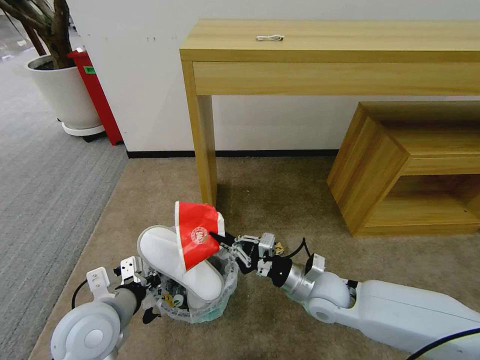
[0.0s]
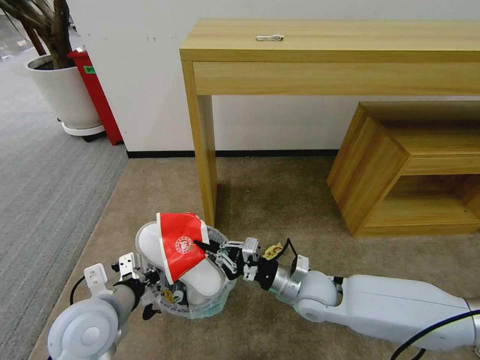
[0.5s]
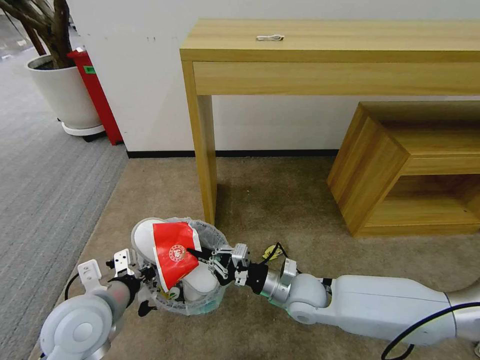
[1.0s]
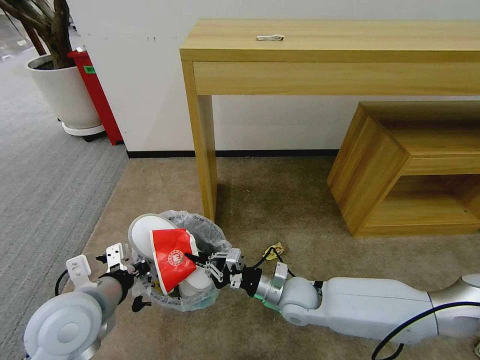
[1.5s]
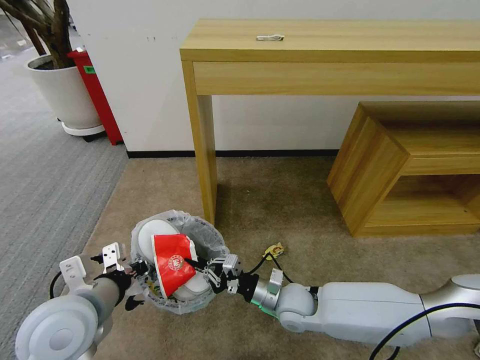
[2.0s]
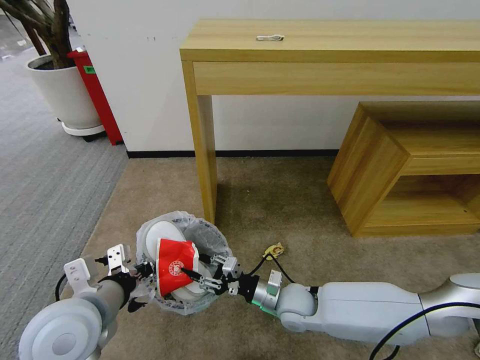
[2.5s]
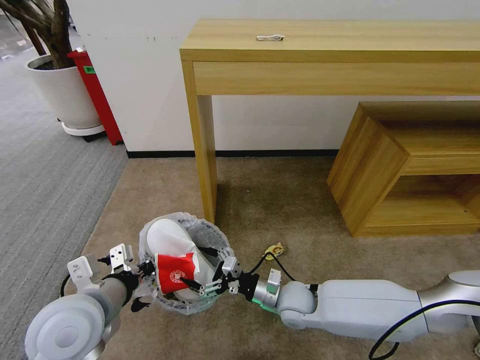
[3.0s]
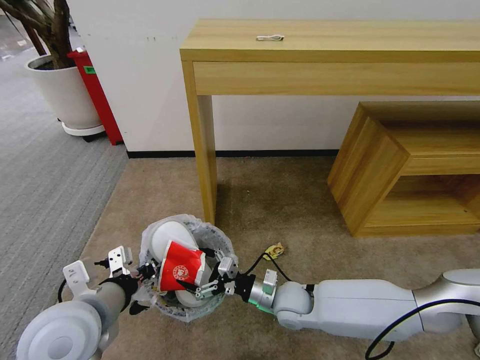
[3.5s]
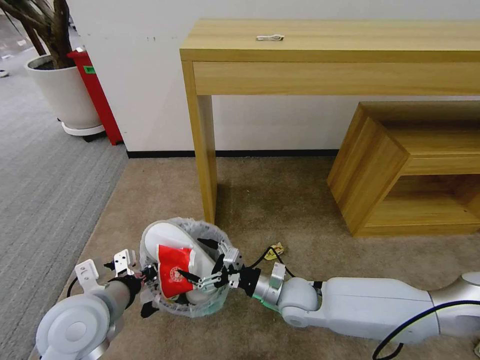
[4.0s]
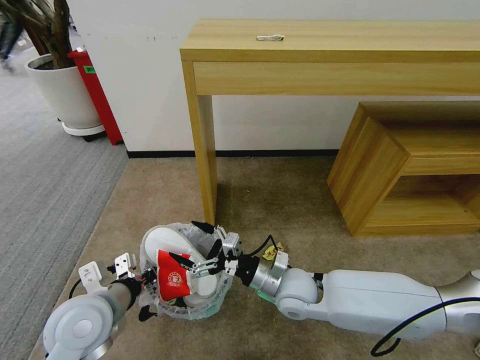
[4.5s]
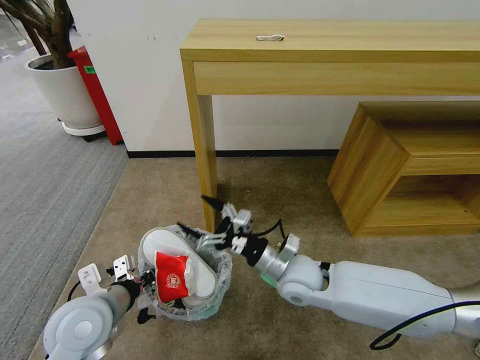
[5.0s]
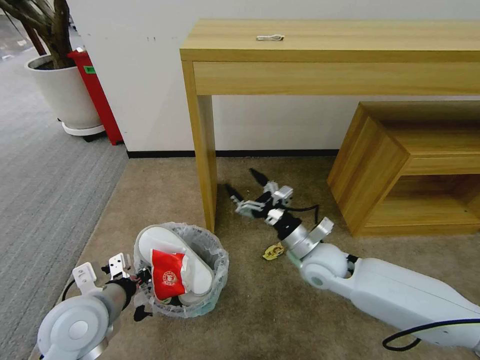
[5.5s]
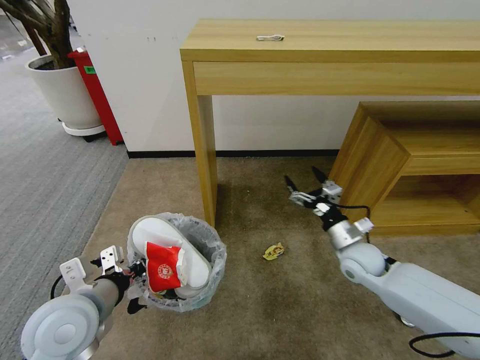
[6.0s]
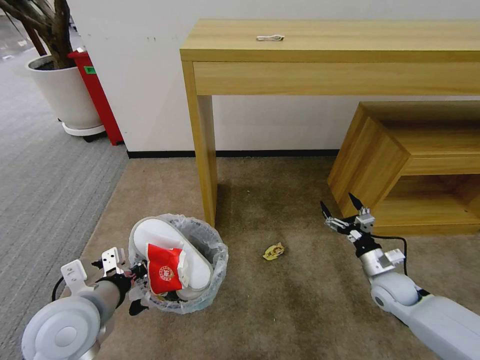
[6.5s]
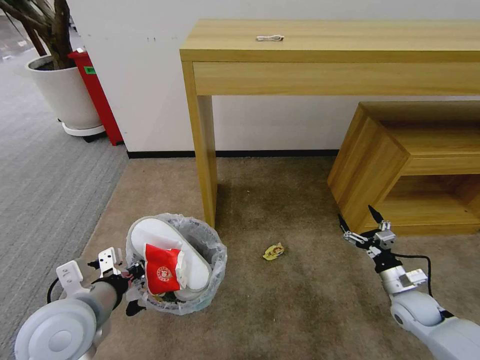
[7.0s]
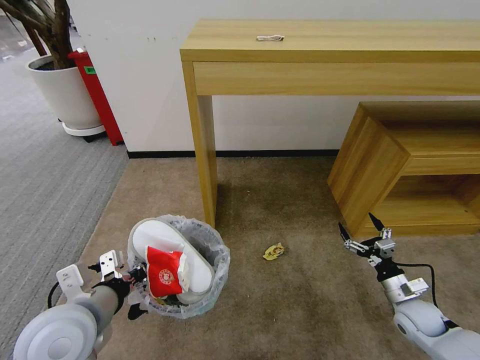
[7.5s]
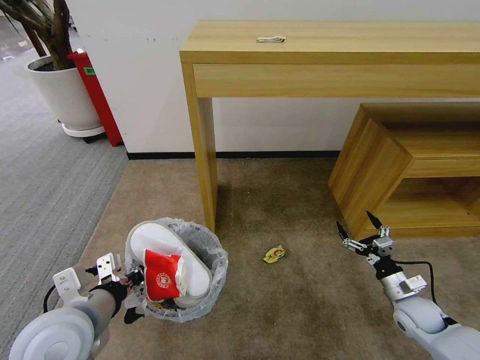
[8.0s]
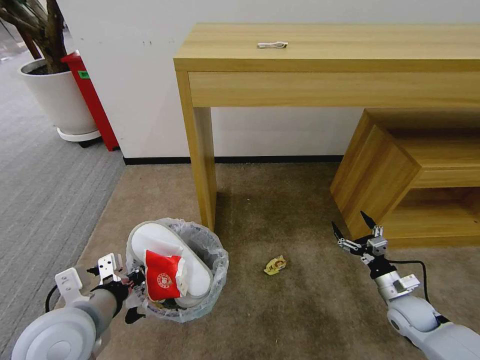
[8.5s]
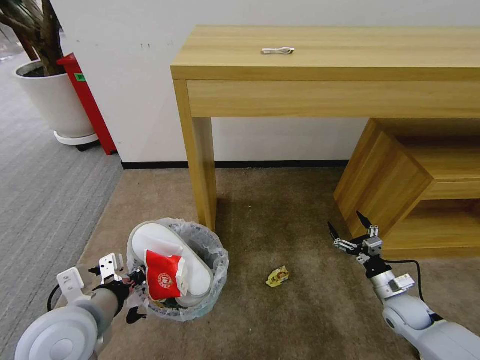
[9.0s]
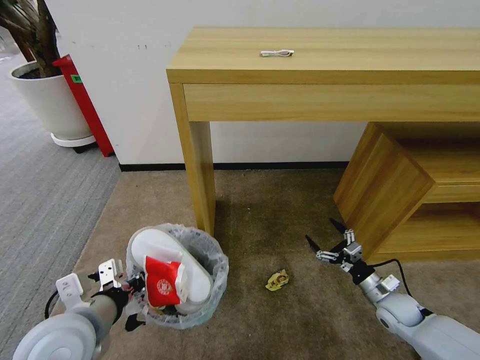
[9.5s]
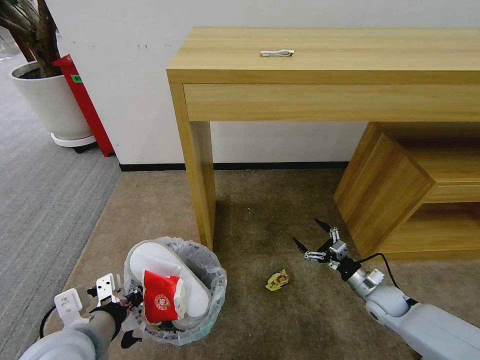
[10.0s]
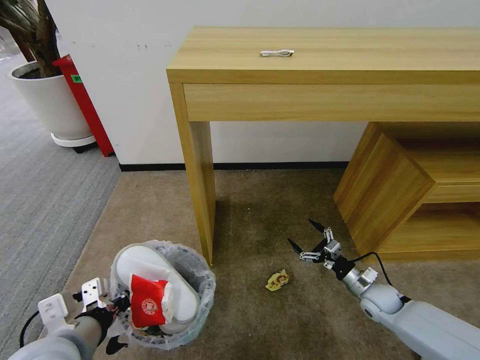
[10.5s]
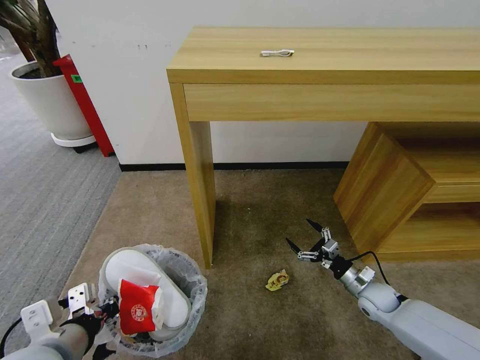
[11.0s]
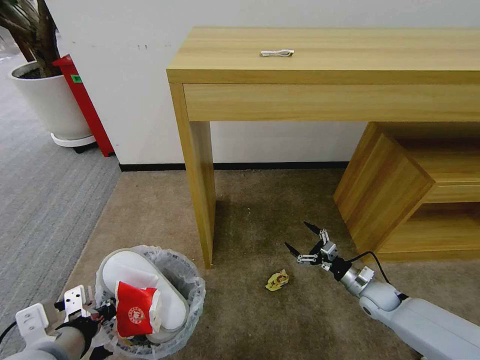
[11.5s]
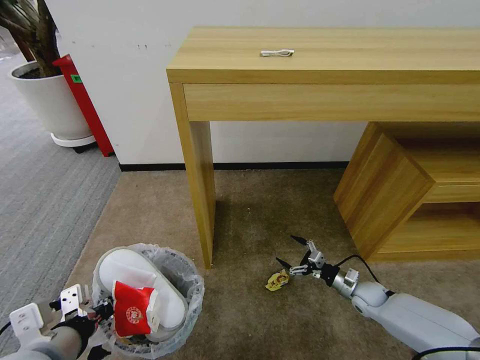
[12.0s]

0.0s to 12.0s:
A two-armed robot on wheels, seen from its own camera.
Task of the whole recording: Pick up the trash bin and place the garbage on the floor into it.
0.0s to 2.0s: The right gripper goes roughly 10 cm to the left and downward, while the left gripper heads upward, covering some 5 cm.
2.0s to 4.0s: The right gripper opens its fingers.
4.0s to 6.0s: The right gripper moves to the right and forward, about 20 cm.
6.0s to 8.0s: The right gripper heads to the right, backward and downward, covering approximately 20 cm.
8.0s to 10.0s: The right gripper moves about 5 cm.
10.0s to 12.0s: The right gripper shifts some 5 cm downward.

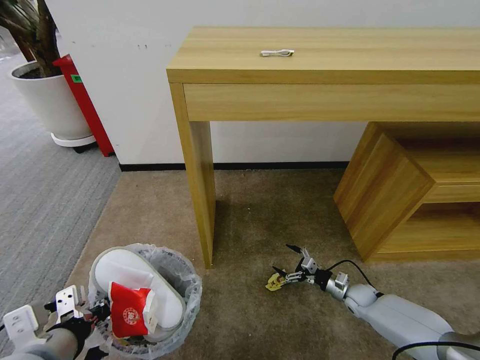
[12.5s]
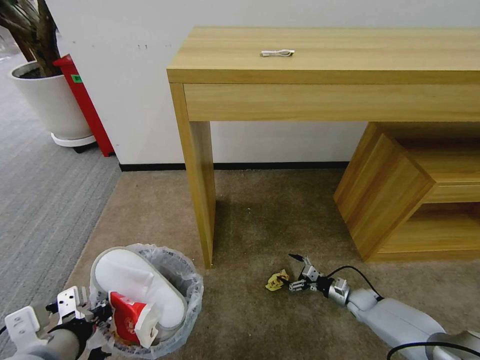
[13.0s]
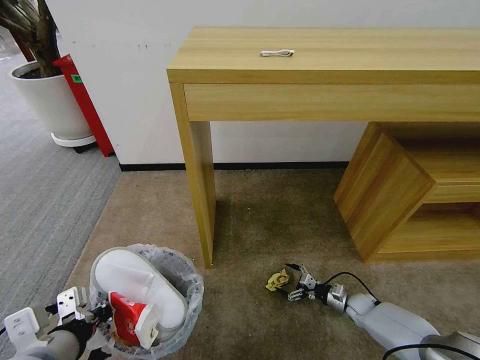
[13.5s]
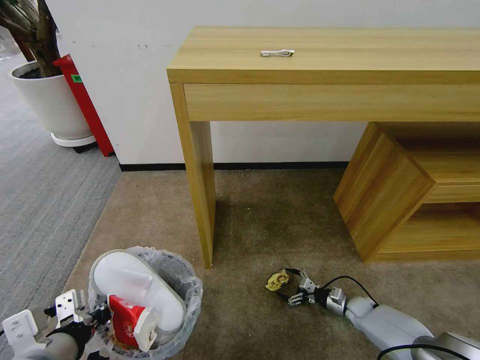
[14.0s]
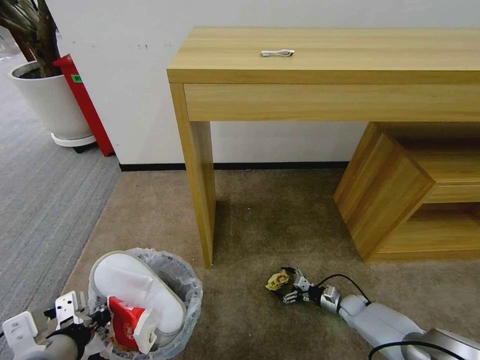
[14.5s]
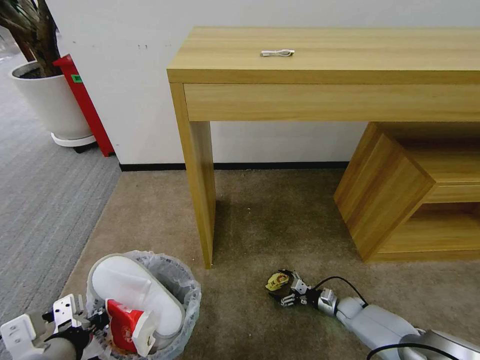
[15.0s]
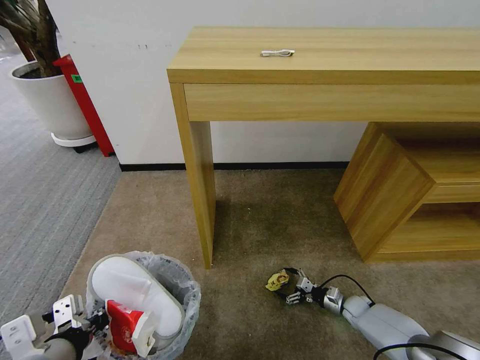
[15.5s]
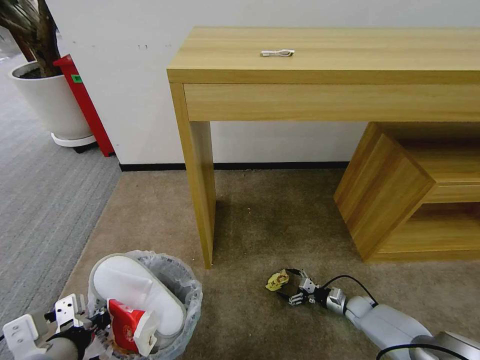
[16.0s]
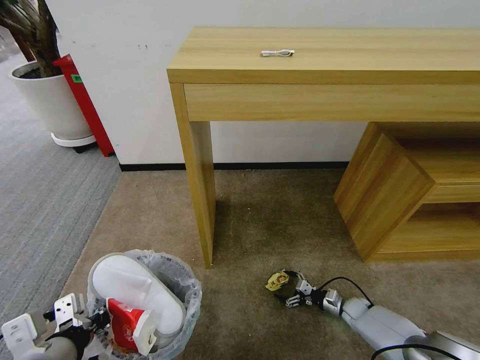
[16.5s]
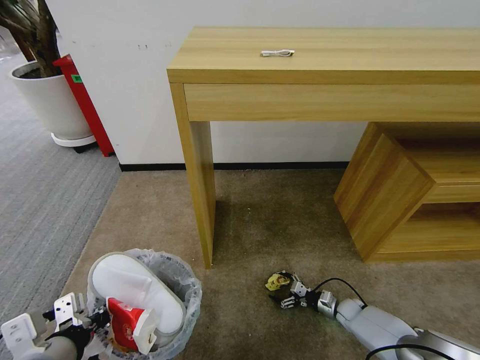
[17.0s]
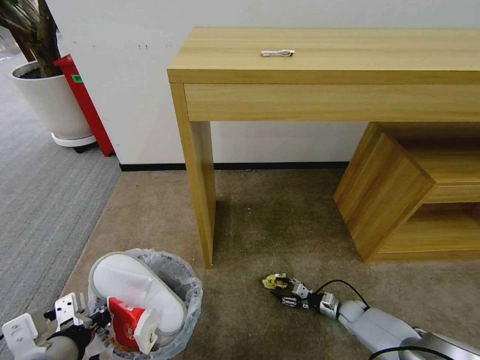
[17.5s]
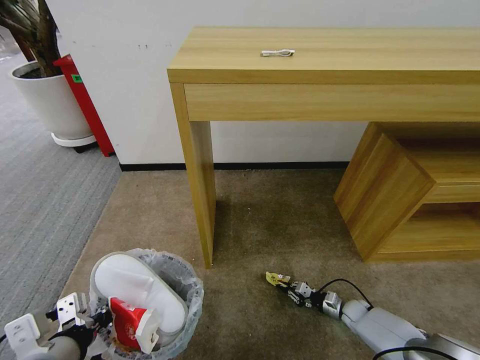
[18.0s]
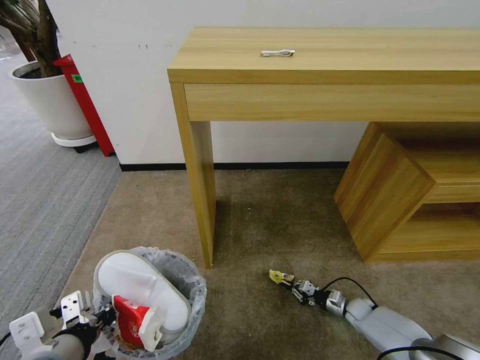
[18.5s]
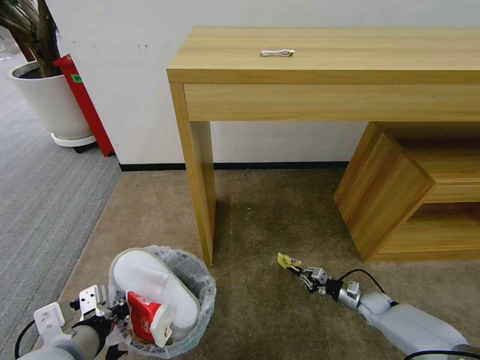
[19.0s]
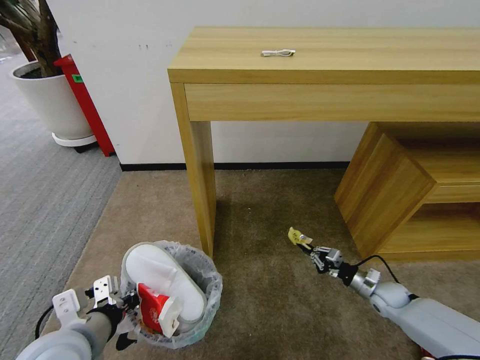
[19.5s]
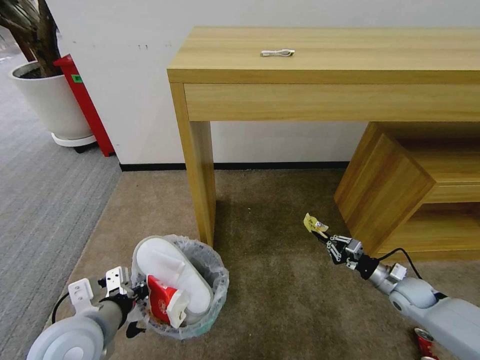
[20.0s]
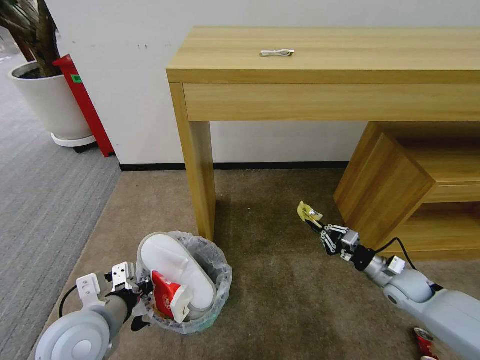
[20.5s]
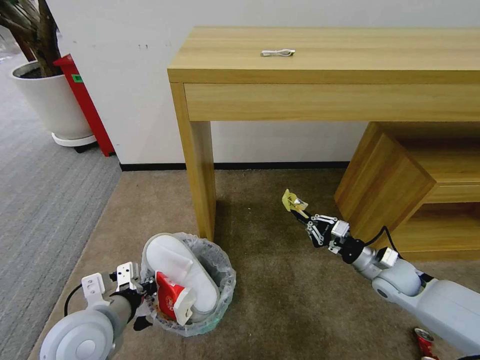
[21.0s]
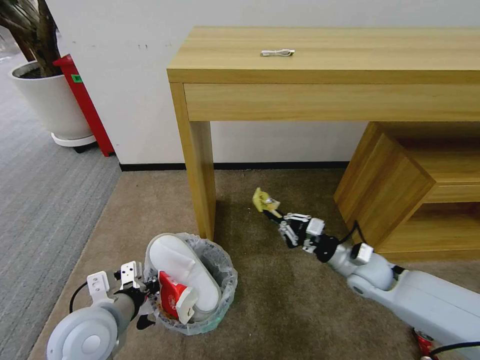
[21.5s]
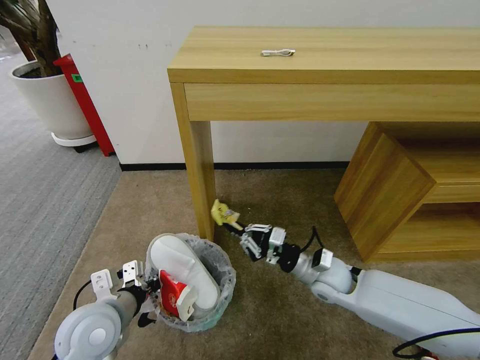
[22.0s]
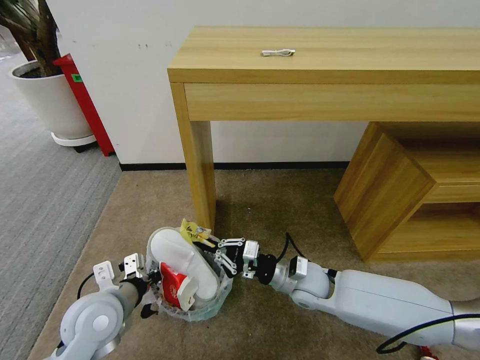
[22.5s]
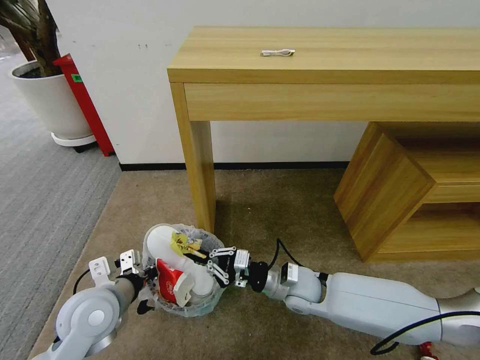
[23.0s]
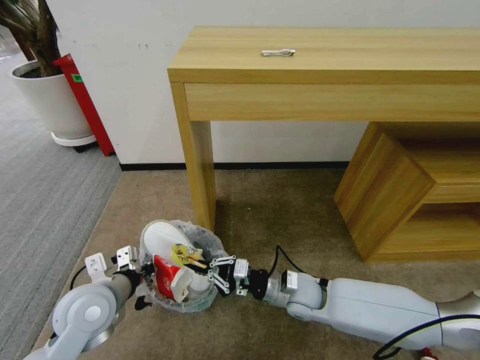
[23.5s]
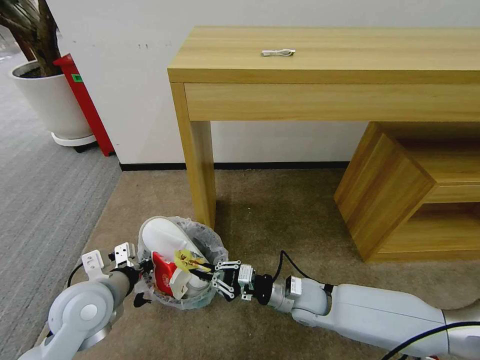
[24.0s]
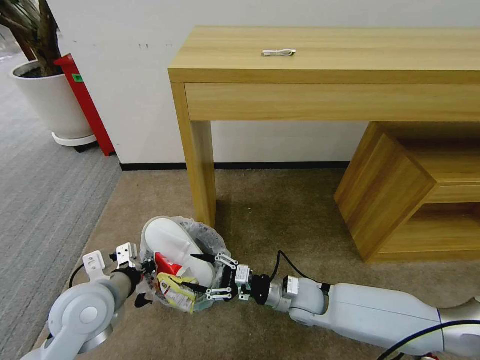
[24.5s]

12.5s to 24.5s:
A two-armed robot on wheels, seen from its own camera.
Task of the whole recording: Pick up the trash bin and place the garbage on the floor into it.
12.5s to 14.5s: The right gripper goes about 5 cm downward.
14.5s to 16.5s: The grippers move only a little.
16.5s to 18.5s: The right gripper closes up.
18.5s to 20.5s: The left gripper is displaced forward by approximately 10 cm; the right gripper is displaced upward by approximately 20 cm.
20.5s to 22.5s: The right gripper moves to the left, approximately 25 cm.
22.5s to 24.5s: The right gripper opens.

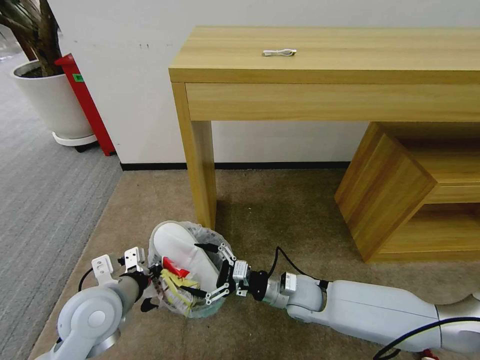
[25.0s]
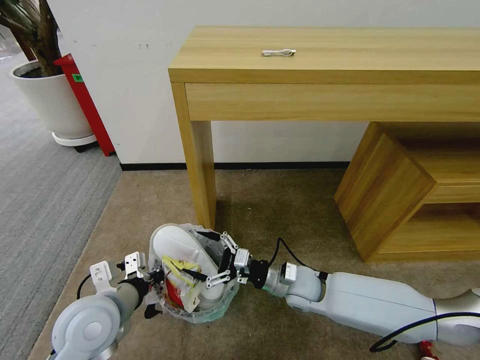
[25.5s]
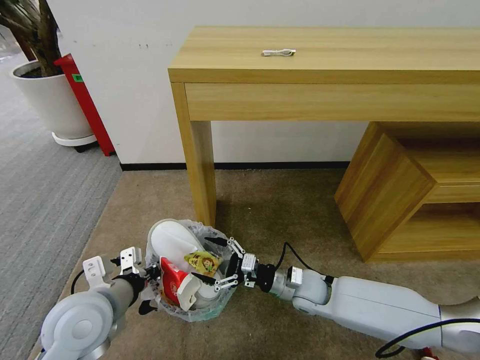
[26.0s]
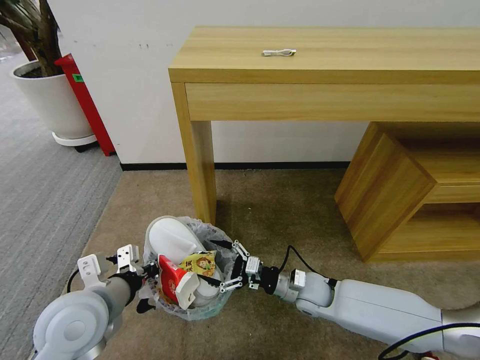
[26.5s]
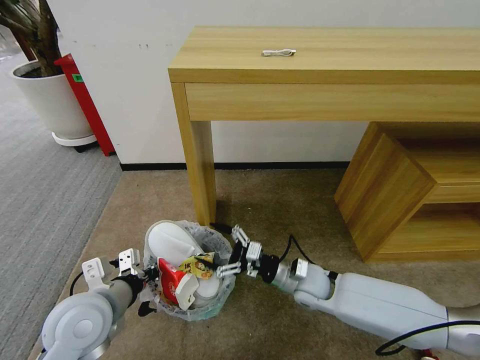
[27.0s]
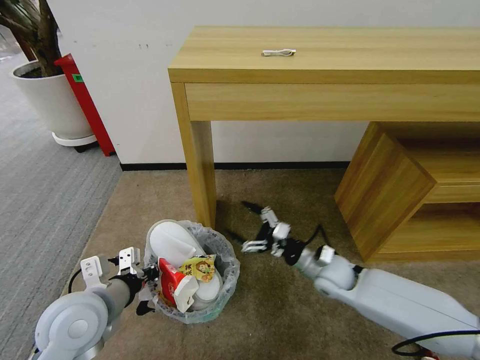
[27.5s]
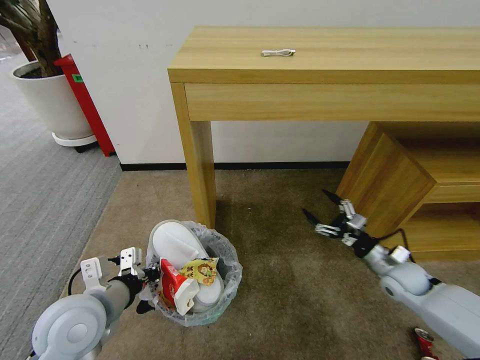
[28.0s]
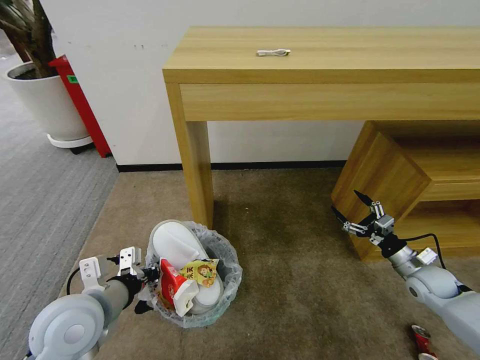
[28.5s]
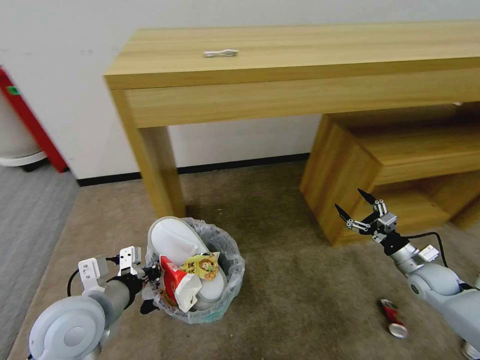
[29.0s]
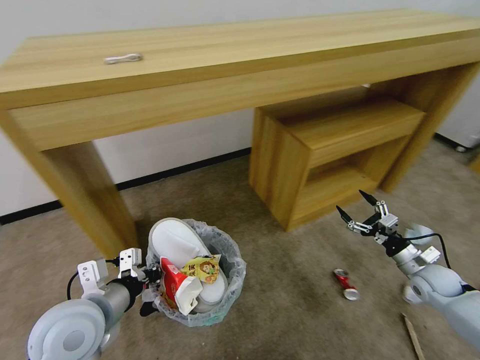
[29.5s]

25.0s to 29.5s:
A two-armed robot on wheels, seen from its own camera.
Task of the whole recording: Pick up the trash bin and place the garbage on the floor into it.
25.0s to 27.0s: There are only small adjustments of the grippers.
27.0s to 29.5s: The right gripper goes about 30 cm to the right.
